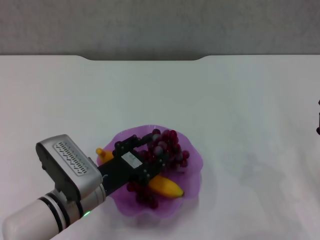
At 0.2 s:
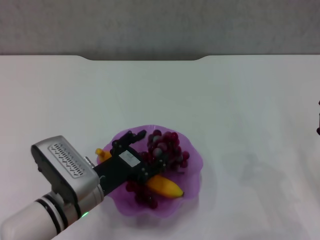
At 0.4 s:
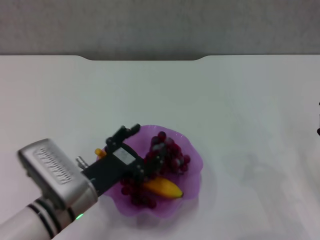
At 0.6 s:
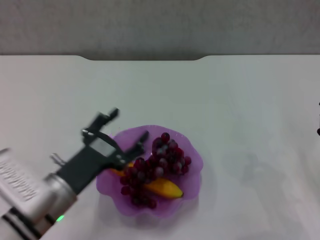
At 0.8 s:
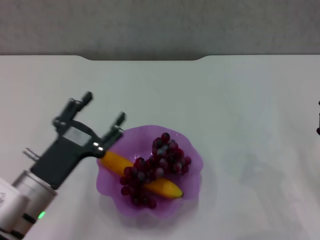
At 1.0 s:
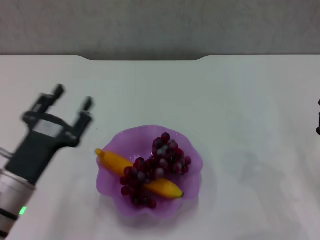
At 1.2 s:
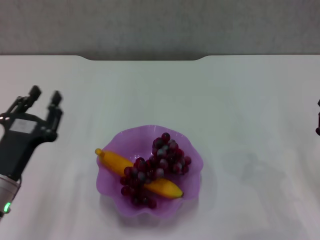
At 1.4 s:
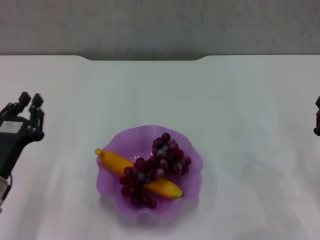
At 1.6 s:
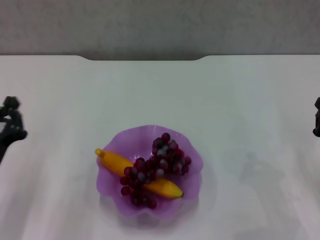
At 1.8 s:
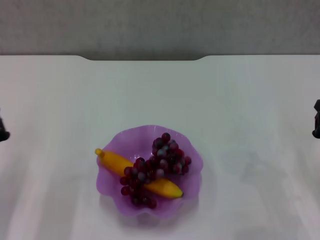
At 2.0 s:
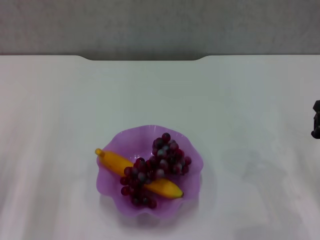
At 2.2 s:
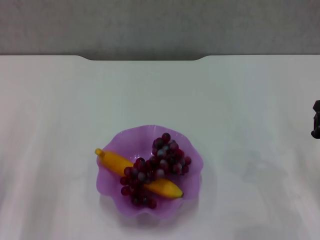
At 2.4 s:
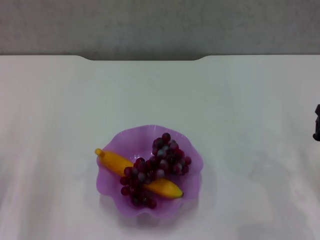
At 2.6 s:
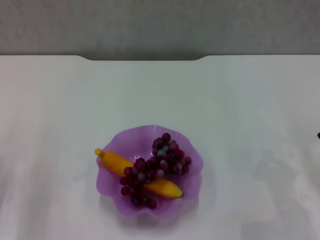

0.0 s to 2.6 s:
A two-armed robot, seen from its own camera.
0.0 to 1.2 s: The left gripper heads to the left, covering roughly 10 cm.
1.2 to 2.6 s: The left gripper moves to the left, some 5 cm, and closes its fingers.

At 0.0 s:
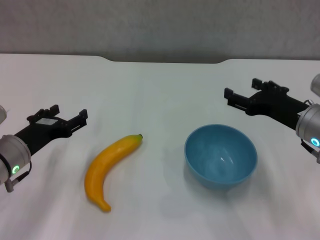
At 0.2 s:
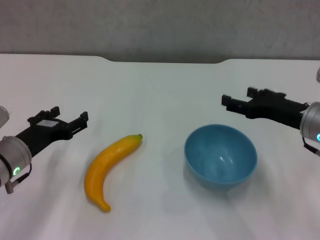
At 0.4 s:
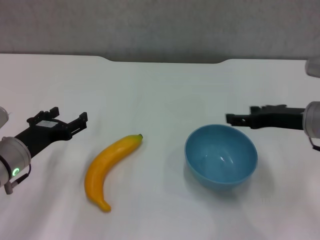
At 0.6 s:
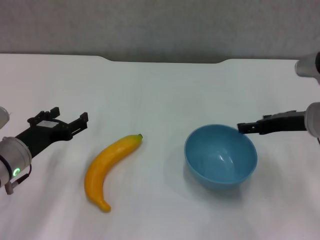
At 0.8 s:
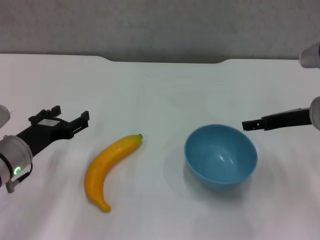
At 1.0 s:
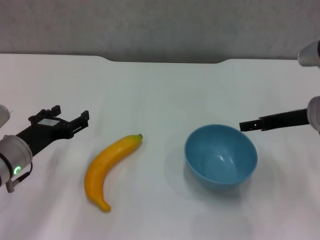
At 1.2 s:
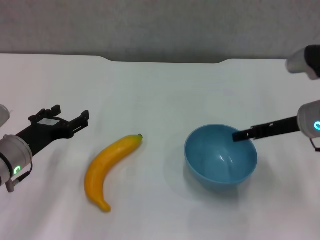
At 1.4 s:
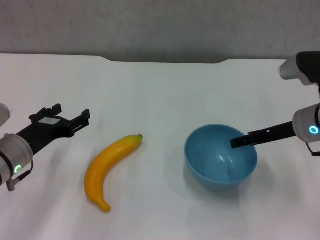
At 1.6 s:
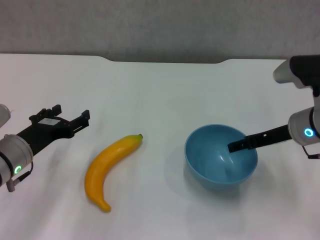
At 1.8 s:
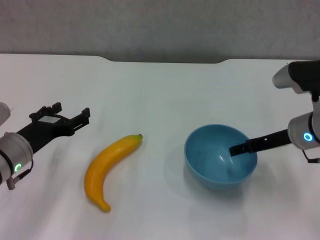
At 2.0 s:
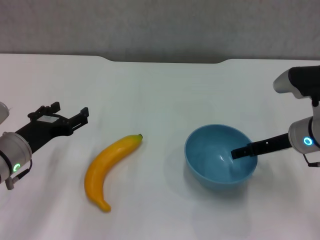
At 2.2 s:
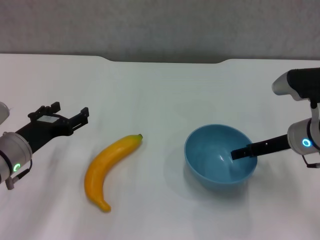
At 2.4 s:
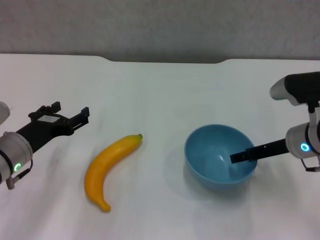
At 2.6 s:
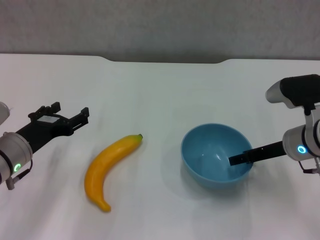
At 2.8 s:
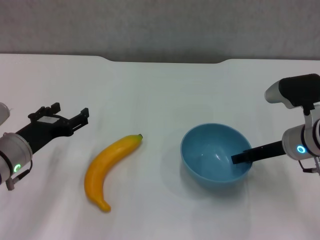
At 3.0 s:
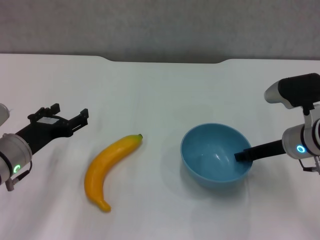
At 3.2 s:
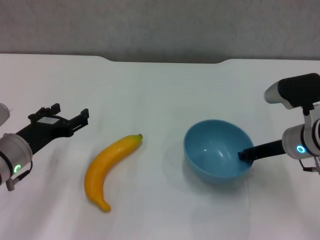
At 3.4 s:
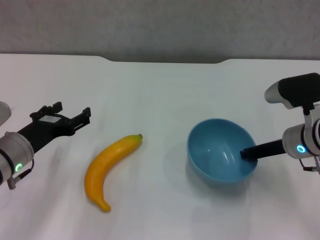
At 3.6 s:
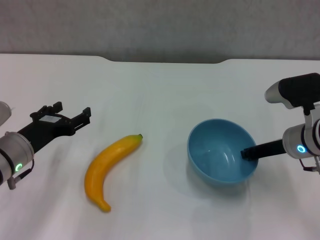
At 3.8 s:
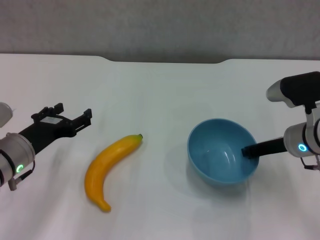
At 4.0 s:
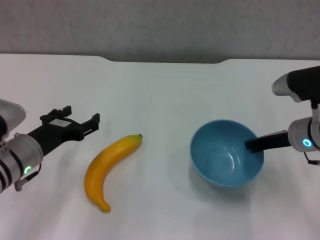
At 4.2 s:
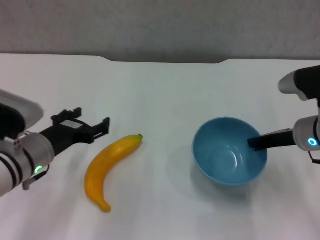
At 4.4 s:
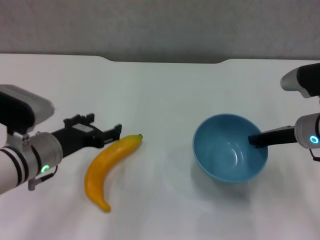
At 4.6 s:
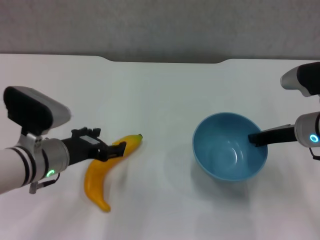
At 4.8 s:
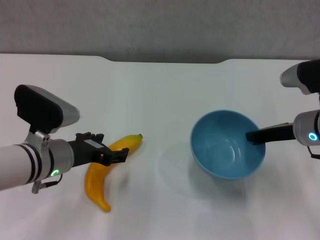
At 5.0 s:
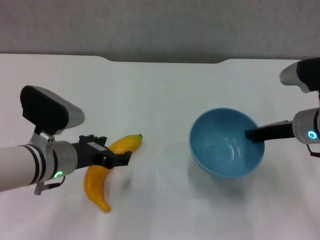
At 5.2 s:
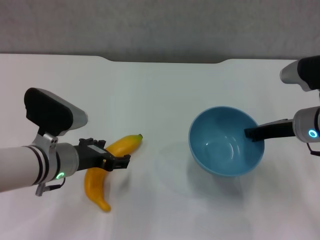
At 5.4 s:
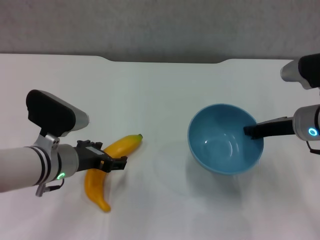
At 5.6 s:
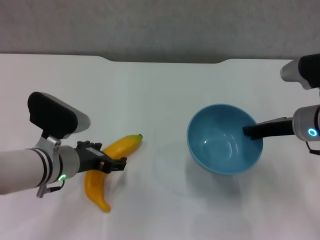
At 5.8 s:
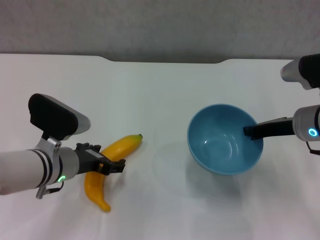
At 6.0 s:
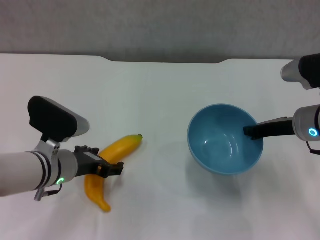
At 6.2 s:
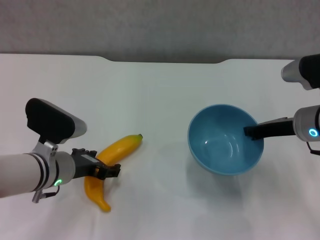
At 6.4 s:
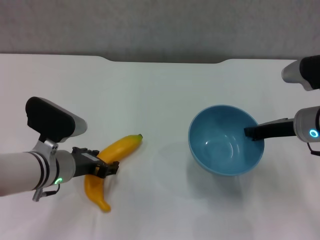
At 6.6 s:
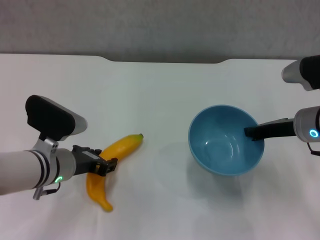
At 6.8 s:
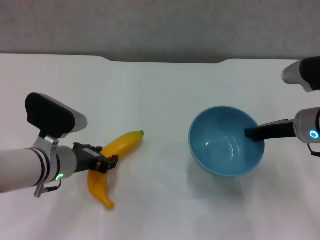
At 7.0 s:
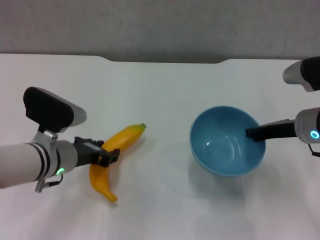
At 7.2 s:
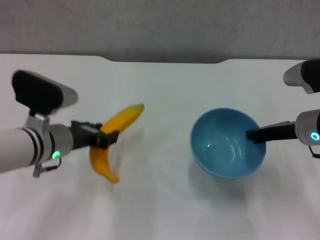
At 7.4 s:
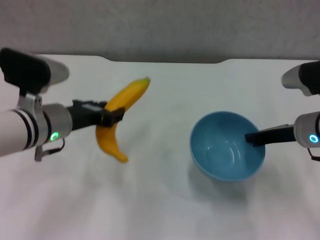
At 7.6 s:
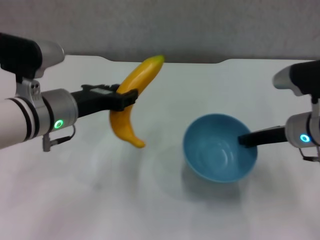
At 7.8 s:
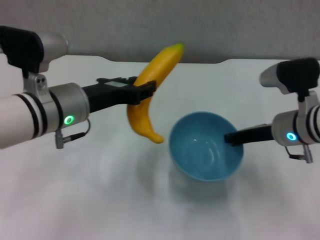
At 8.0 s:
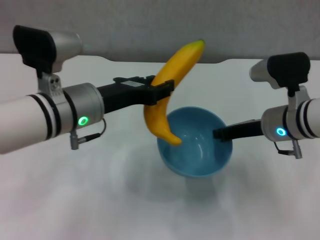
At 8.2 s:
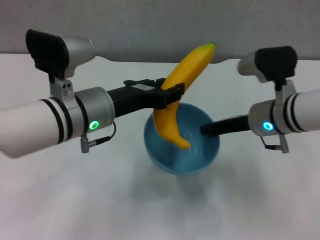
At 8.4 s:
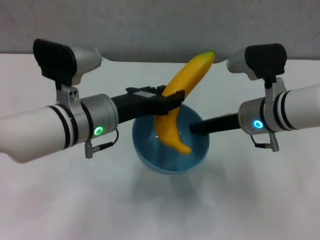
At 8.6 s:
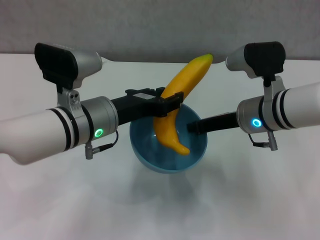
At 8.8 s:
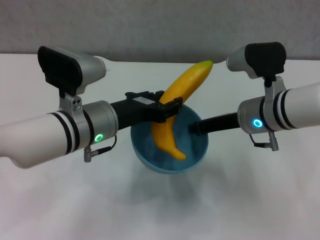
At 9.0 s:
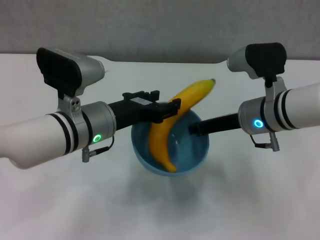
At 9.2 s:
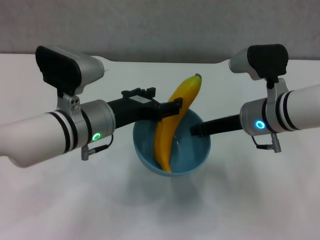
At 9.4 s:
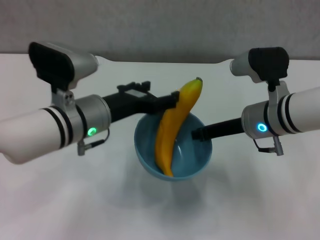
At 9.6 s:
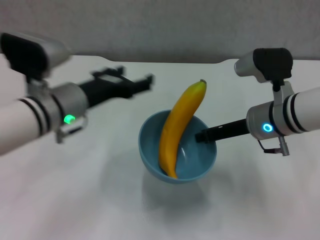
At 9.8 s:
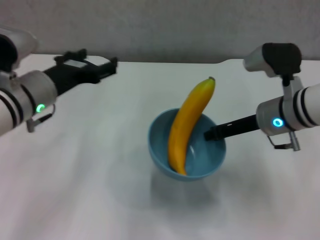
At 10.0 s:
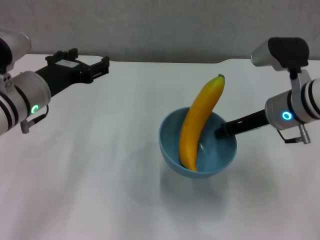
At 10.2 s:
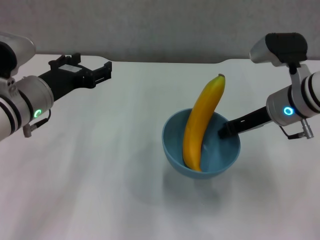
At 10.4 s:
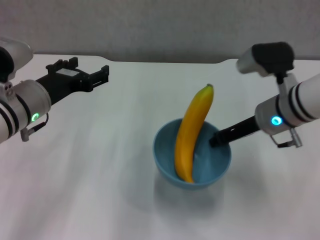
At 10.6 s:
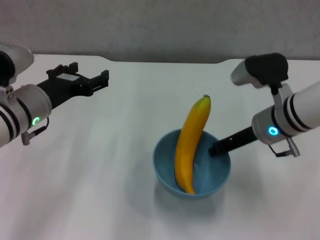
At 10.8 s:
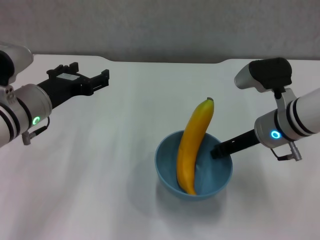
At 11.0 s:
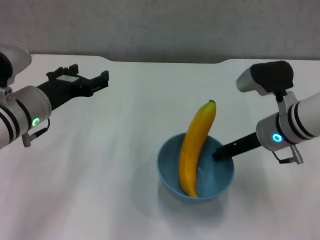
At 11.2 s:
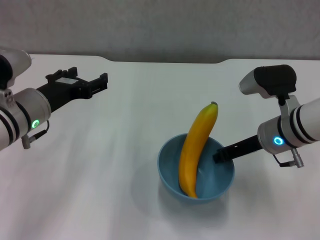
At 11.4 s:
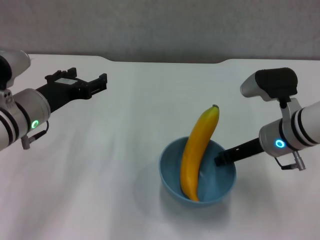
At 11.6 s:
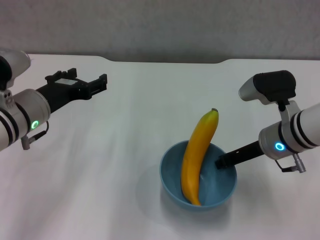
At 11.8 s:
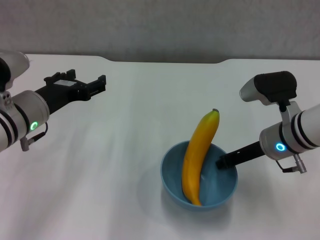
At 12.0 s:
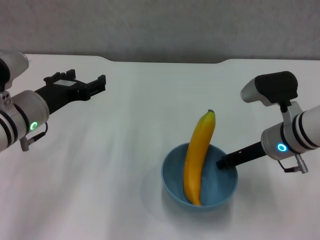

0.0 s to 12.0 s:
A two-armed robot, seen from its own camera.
Step, 0.0 to 3.4 s: Grasp the blue bowl with right gripper.
Step, 3.6 to 4.4 s: Lift the blue bowl with right gripper.
Step, 4.6 to 6.6 s: Grasp the banana with left gripper.
Step, 6.8 to 9.0 s: Place the banana in the blue bowl with left gripper.
1.6 to 3.0 s: The grippers stay close to where they were, moving slightly.
3.0 to 4.4 s: The right gripper closes.
4.4 to 6.0 s: The grippers make only small movements.
6.0 to 7.6 s: The left gripper heads upward, covering about 10 cm, and closes its fingers.
7.6 to 9.0 s: The right gripper travels to the left by some 5 cm. Meanwhile the left gripper ends up about 5 cm from where it was.
9.0 to 10.4 s: The left gripper shifts about 10 cm to the left, and opens its fingers.

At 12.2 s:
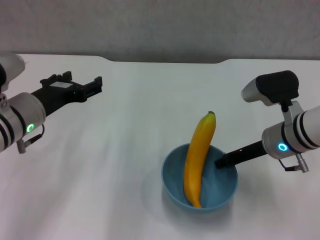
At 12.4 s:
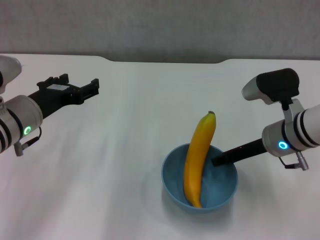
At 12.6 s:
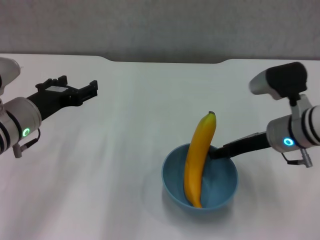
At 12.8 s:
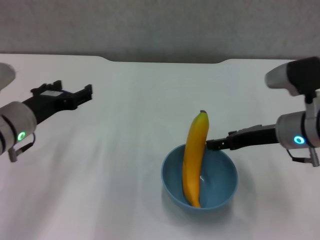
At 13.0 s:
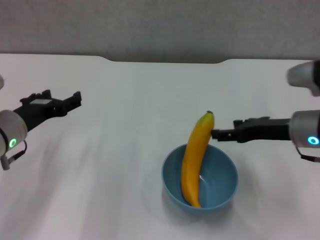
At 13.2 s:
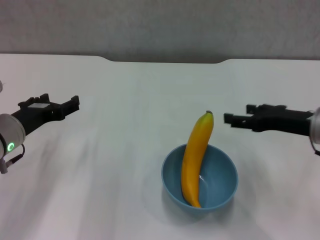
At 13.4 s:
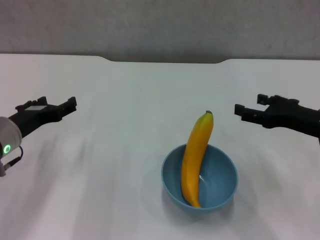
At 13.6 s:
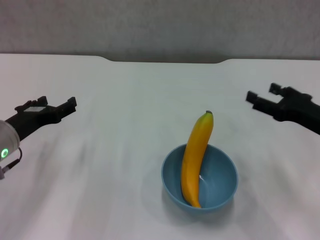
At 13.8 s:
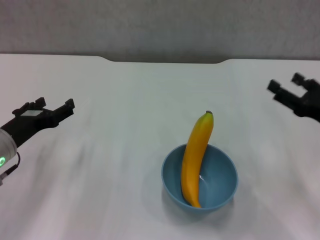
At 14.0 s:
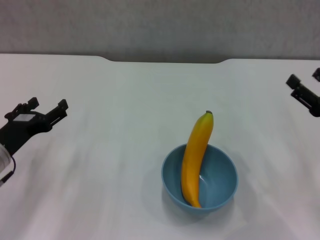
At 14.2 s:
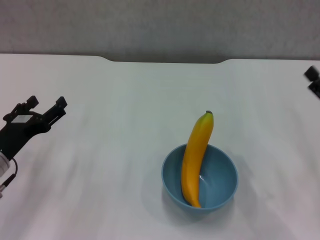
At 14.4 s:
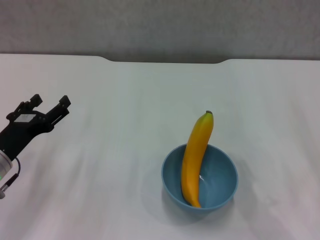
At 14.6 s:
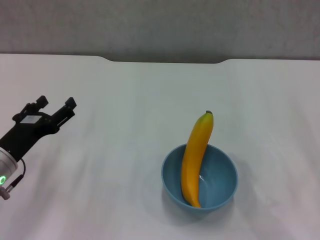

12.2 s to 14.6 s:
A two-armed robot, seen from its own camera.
12.2 to 13.4 s: The right gripper heads to the right, covering approximately 10 cm, and opens its fingers, while the left gripper shifts by approximately 5 cm.
13.4 to 14.6 s: The right gripper is displaced backward and to the right by some 10 cm. Meanwhile the left gripper changes place by some 5 cm.
